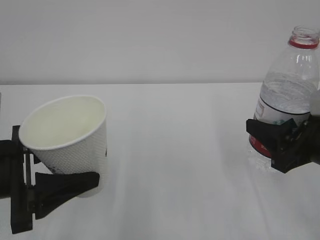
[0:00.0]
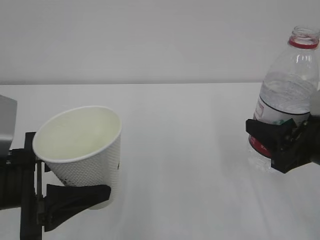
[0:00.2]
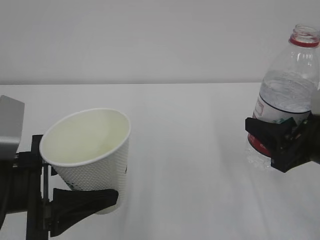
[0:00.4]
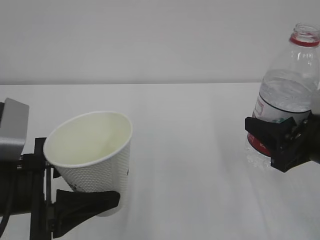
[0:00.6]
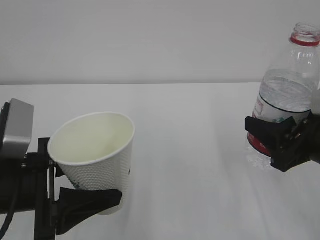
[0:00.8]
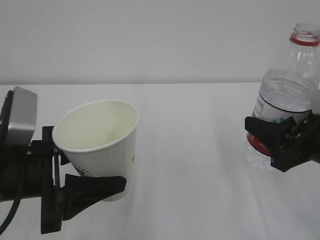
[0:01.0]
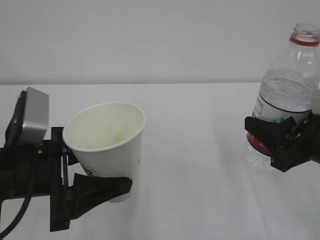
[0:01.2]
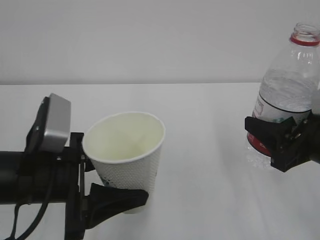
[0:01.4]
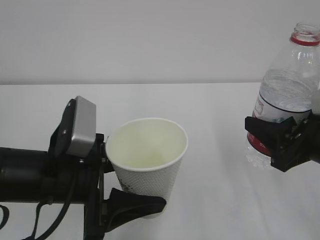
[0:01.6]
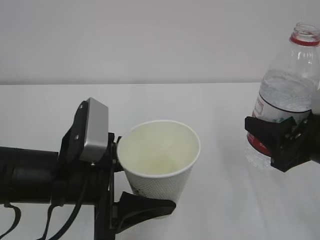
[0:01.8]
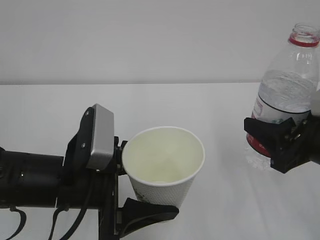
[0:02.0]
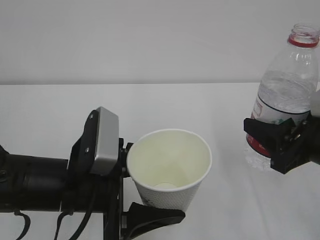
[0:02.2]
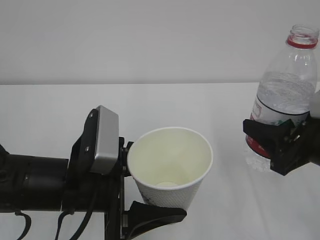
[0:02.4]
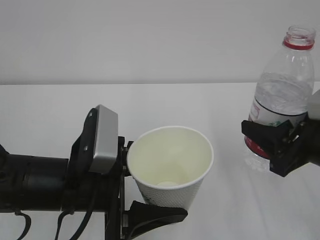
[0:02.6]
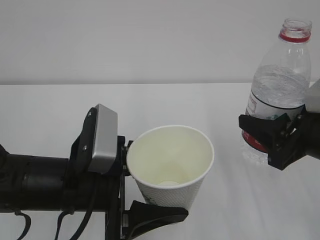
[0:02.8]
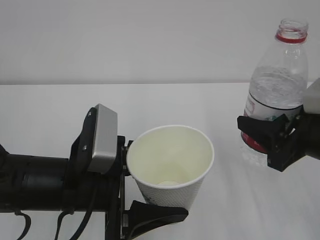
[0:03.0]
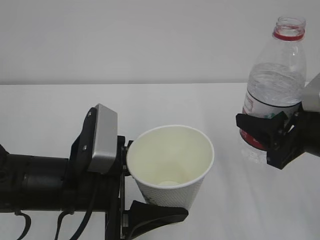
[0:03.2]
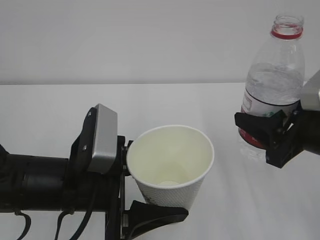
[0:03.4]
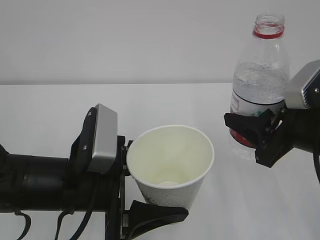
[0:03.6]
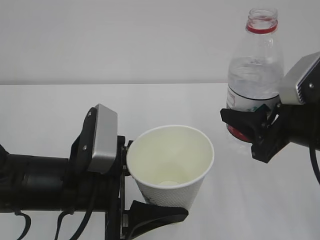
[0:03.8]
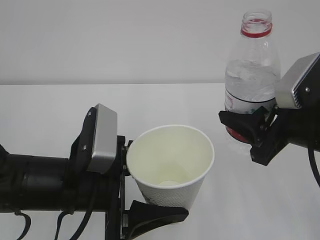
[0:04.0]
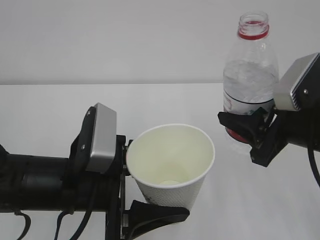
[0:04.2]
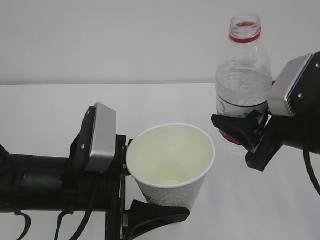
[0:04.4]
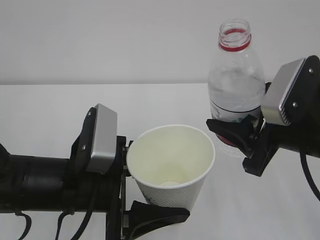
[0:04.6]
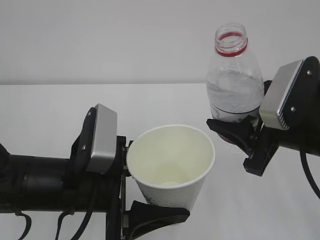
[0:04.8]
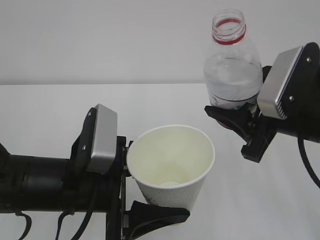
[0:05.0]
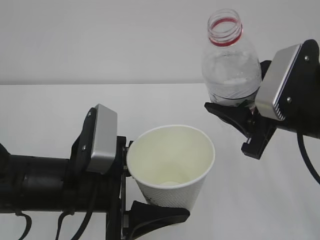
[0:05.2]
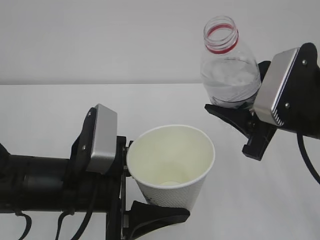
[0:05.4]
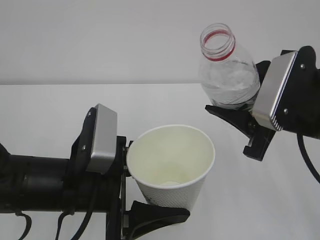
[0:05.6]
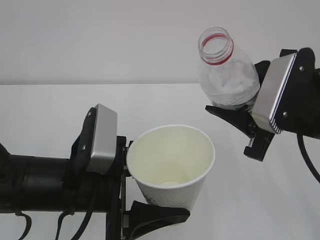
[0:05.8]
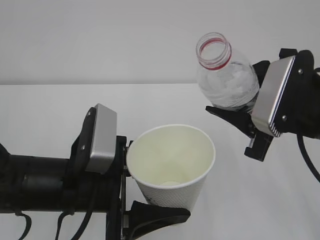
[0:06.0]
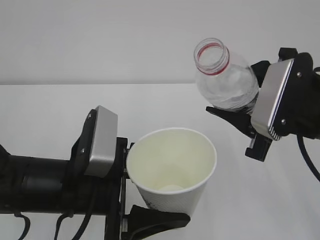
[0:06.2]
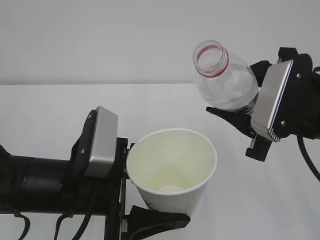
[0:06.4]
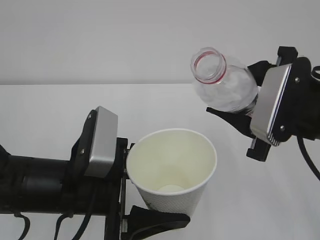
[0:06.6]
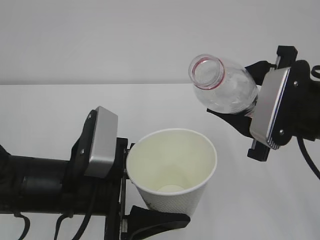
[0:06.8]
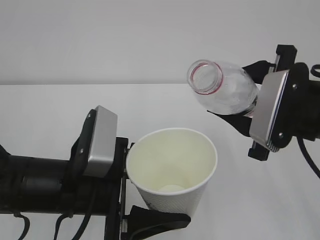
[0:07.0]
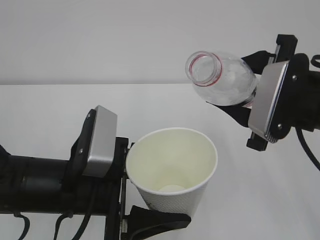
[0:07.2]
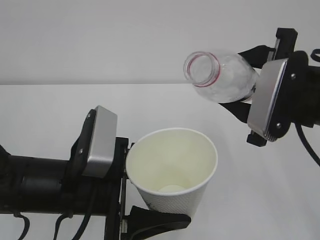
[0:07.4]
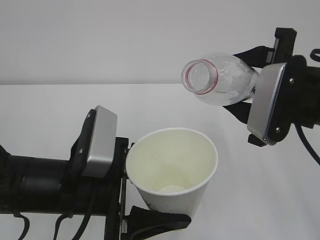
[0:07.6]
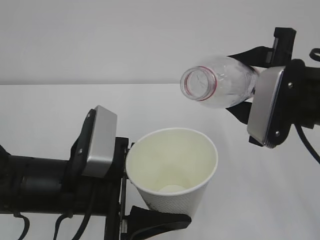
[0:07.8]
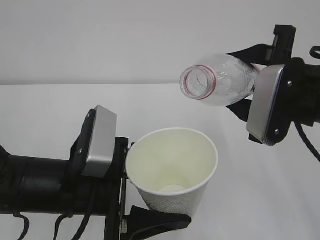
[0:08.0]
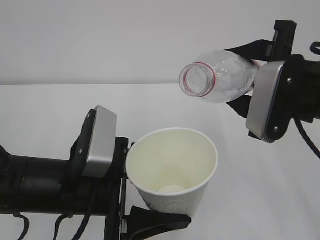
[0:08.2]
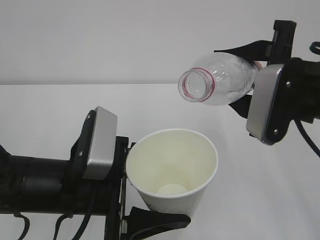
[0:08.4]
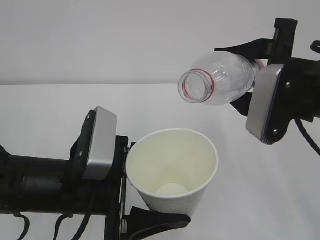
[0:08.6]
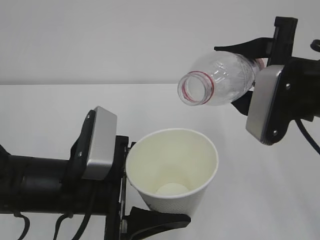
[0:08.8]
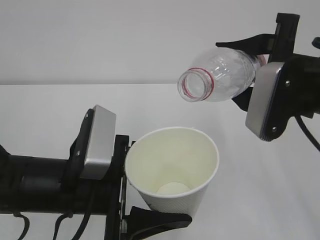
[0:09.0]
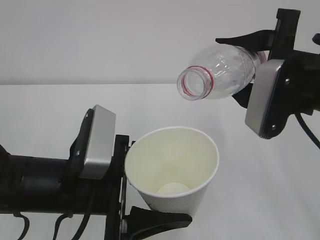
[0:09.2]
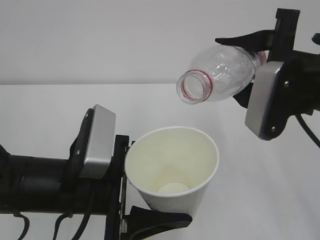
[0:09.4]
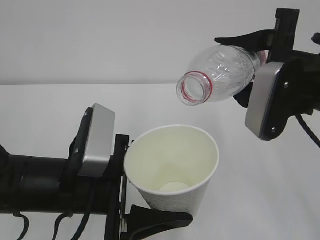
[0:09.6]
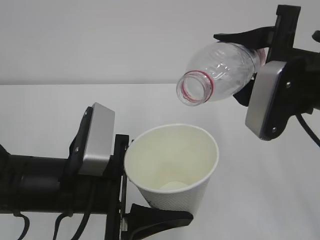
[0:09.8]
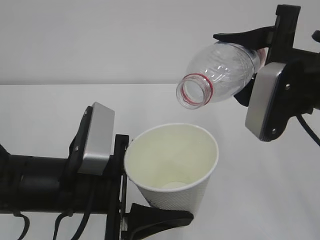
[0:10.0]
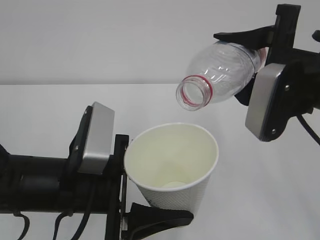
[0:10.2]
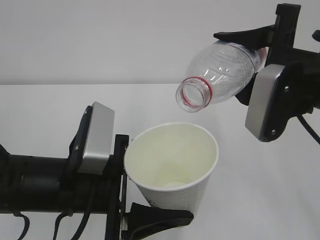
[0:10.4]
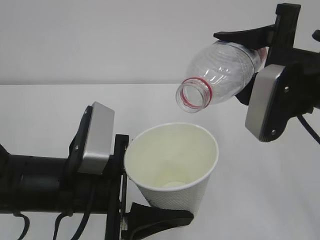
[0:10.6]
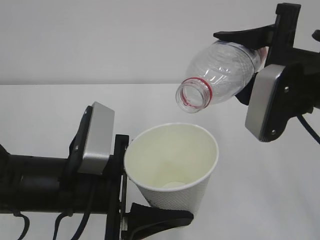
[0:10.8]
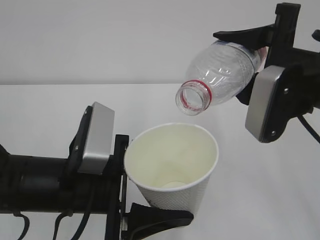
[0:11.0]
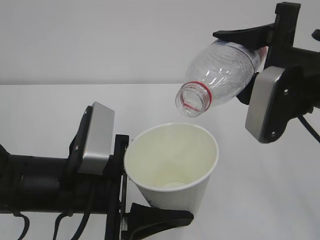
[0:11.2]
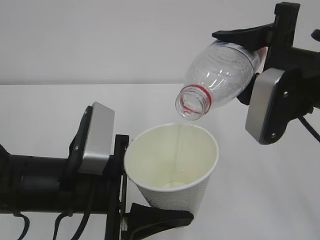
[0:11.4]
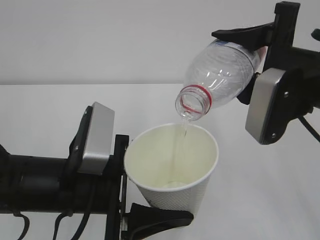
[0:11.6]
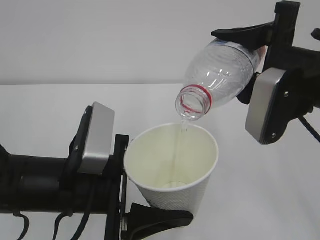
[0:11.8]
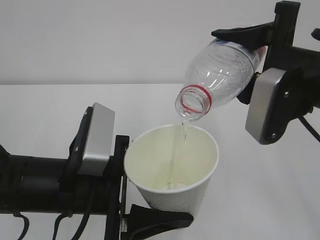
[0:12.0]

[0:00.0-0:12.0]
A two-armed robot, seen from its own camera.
0:00.0 to 0:01.6: The left gripper goes some 10 cm to the right.
0:01.6 to 0:03.0: The grippers make only small movements.
0:03.0 to 0:04.4: The grippers stay close to where they were, moving slightly.
0:06.0 to 0:07.6: There are only small adjustments of the grippers.
0:07.6 to 0:10.4: The grippers make only small movements.
0:10.4 to 0:12.0: Both grippers stay about where they are.

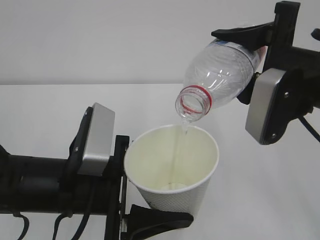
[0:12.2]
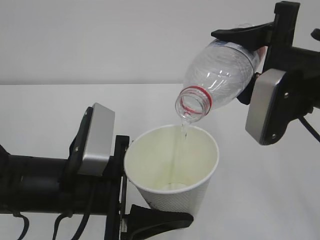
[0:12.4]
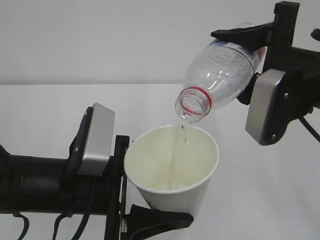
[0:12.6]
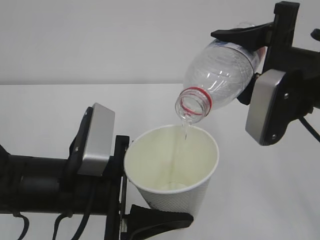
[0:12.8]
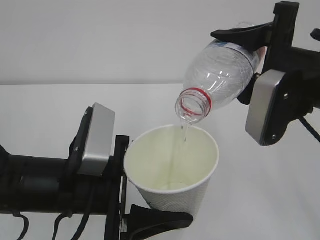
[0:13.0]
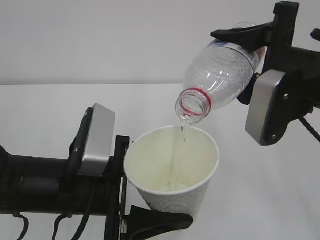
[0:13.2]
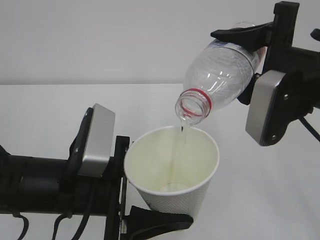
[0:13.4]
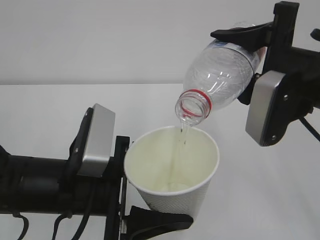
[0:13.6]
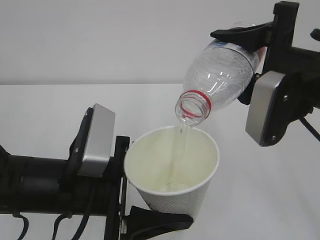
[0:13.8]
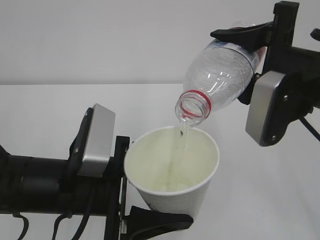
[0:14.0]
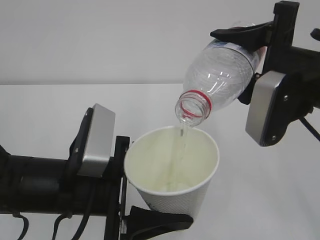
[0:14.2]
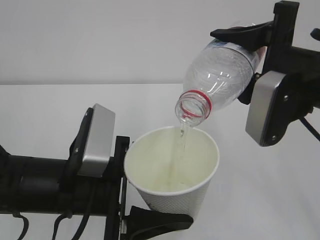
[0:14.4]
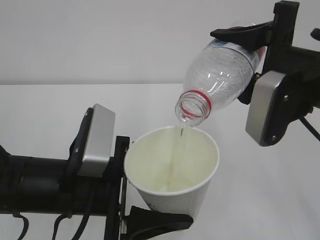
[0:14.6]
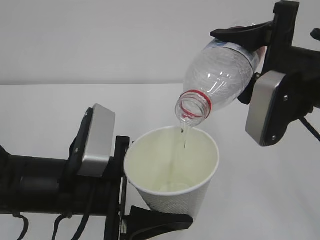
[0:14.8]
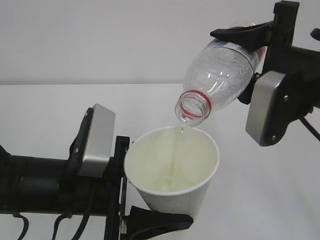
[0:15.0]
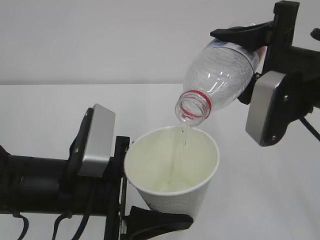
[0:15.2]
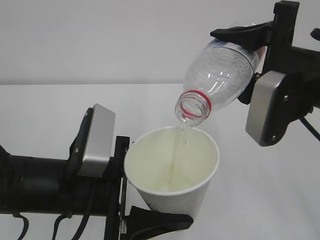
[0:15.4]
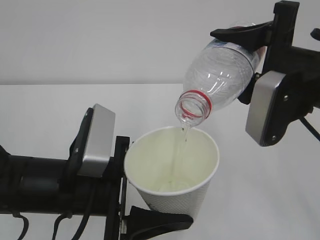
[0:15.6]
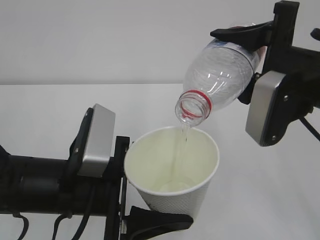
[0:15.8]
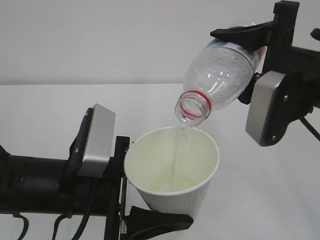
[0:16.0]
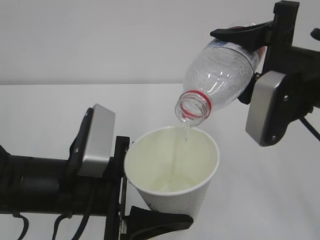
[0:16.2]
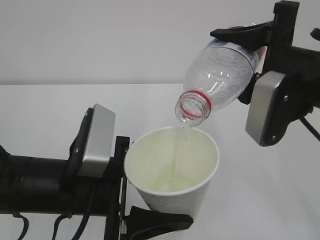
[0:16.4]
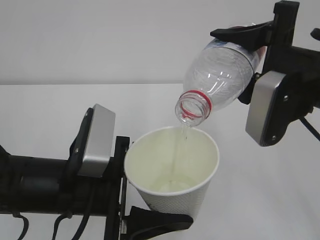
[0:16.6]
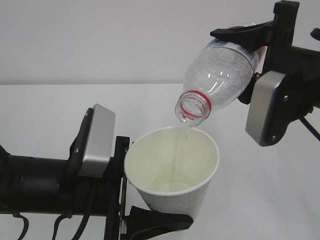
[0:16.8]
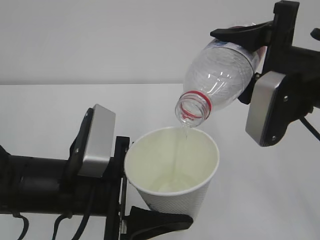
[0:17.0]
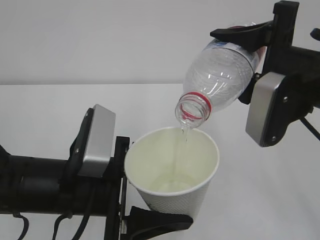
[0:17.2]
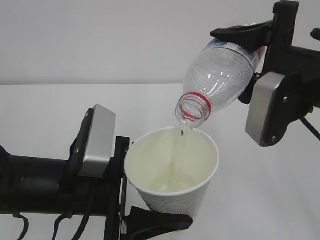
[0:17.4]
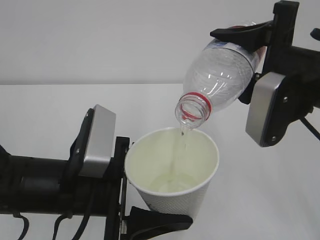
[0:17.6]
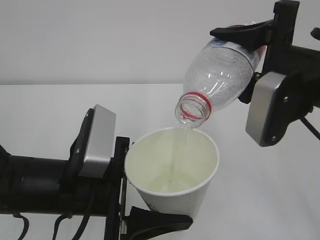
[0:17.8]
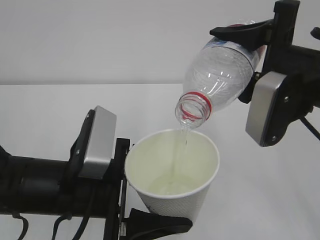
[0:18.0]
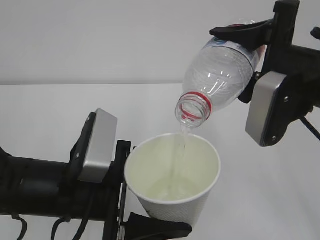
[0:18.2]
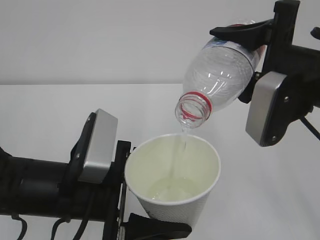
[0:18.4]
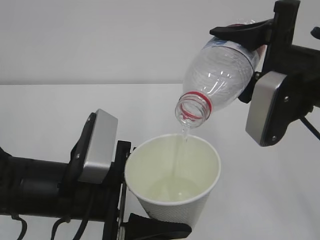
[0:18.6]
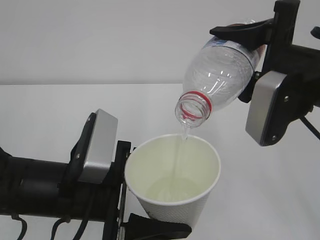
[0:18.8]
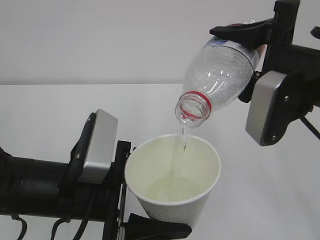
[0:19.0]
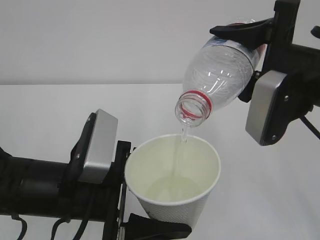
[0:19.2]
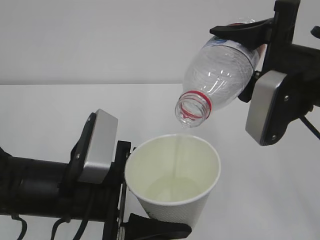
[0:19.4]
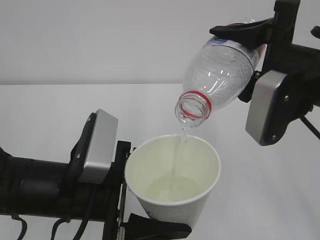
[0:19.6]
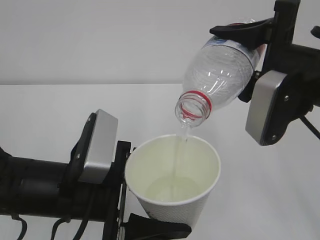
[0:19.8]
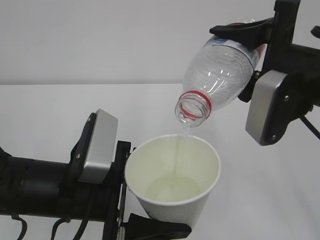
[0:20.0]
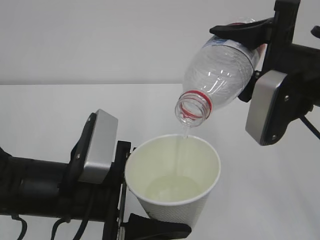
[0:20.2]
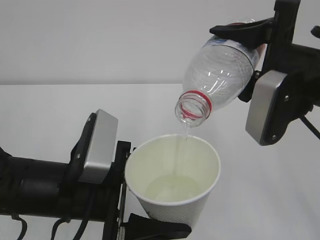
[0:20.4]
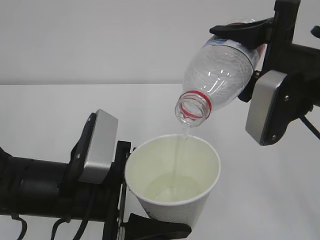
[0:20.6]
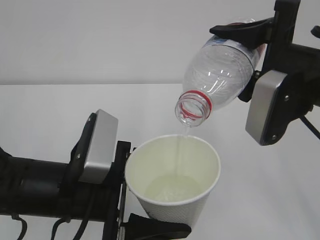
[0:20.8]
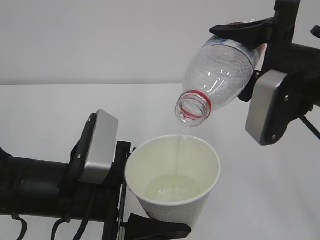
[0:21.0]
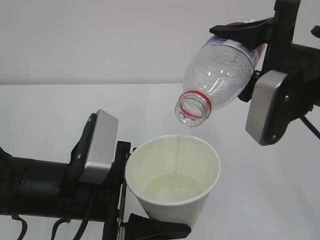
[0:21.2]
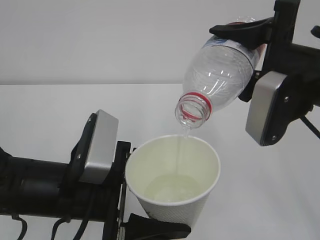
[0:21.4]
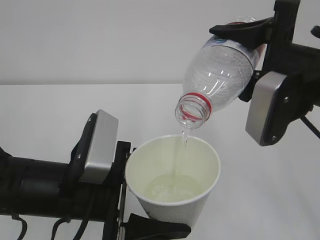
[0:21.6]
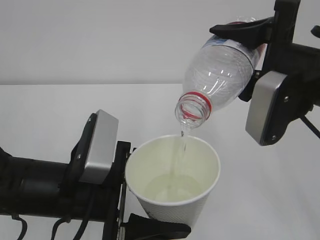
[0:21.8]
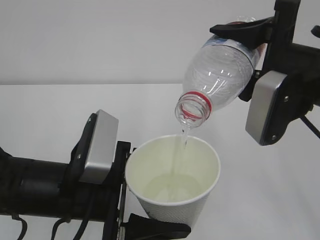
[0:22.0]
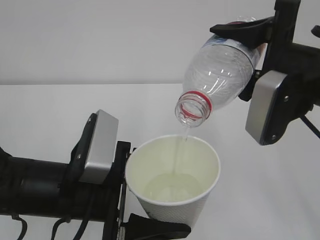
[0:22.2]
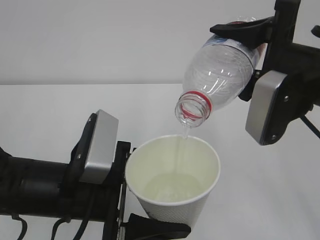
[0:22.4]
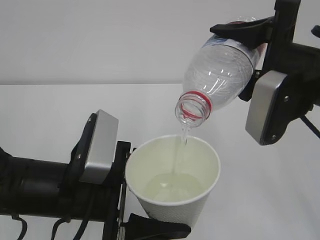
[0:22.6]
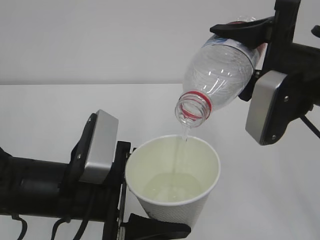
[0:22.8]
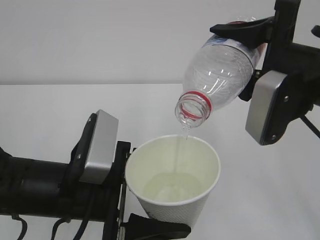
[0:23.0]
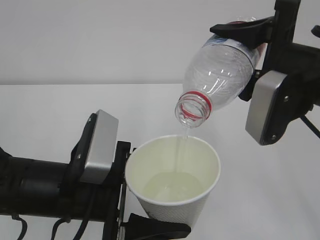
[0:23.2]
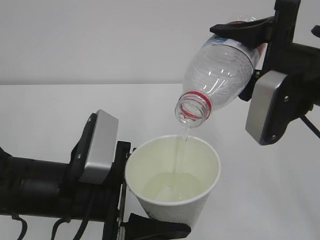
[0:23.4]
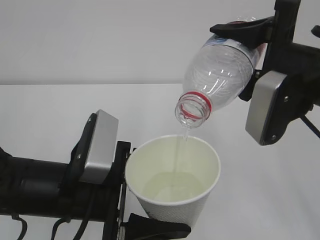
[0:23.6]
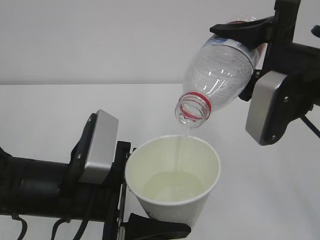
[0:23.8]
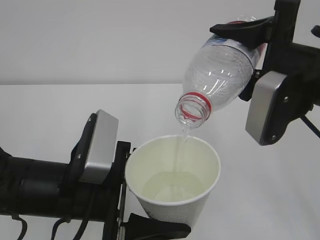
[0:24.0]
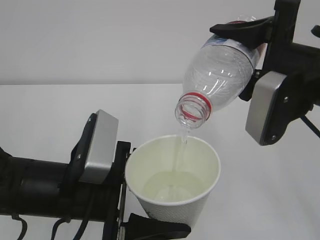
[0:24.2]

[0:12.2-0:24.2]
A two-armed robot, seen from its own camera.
0:12.2 to 0:22.6: Both grippers stay put.
0:22.6 to 0:24.2: The two grippers keep their place.
